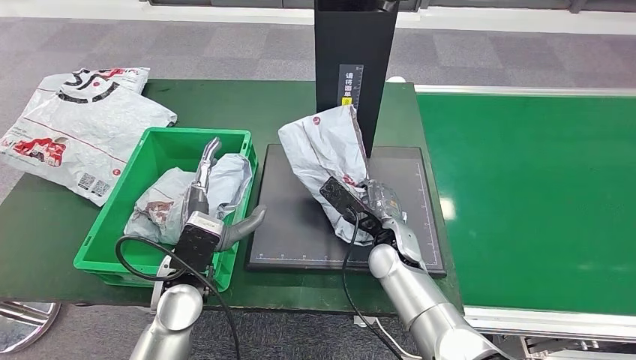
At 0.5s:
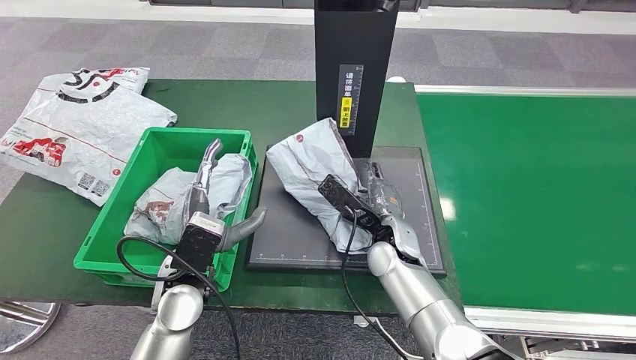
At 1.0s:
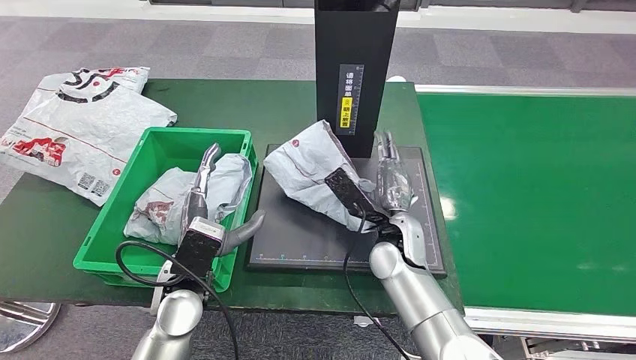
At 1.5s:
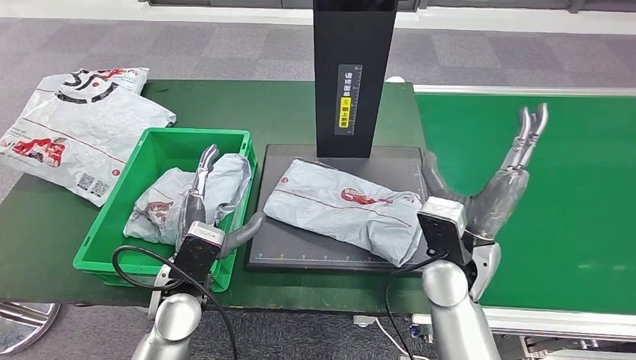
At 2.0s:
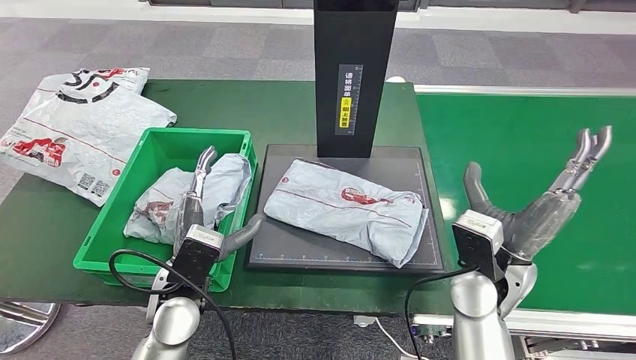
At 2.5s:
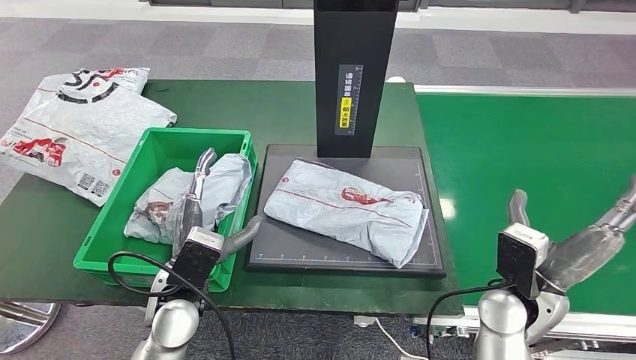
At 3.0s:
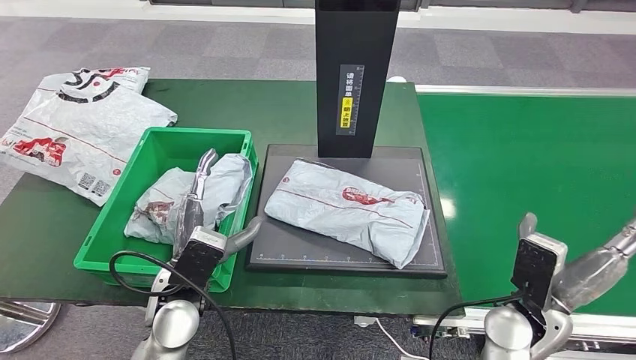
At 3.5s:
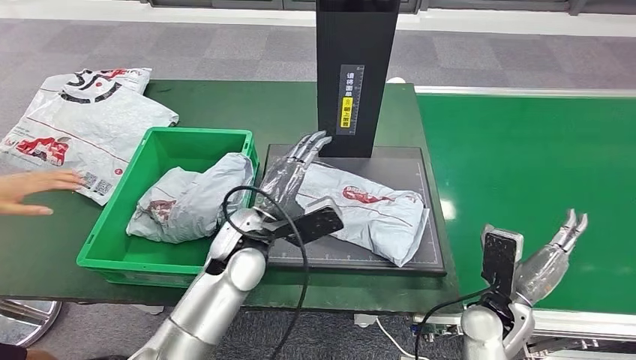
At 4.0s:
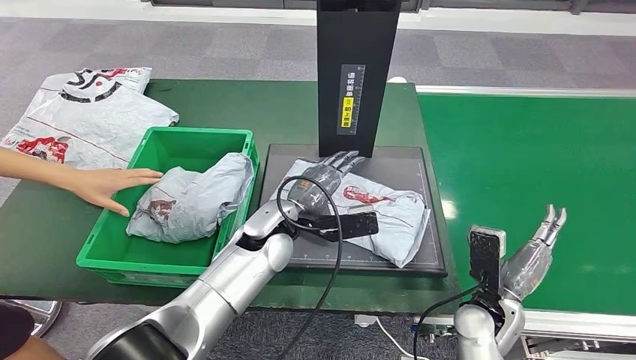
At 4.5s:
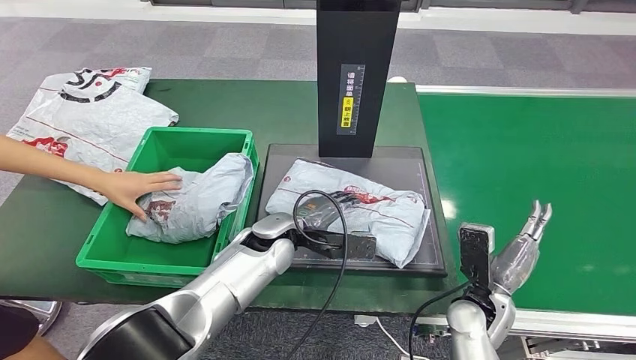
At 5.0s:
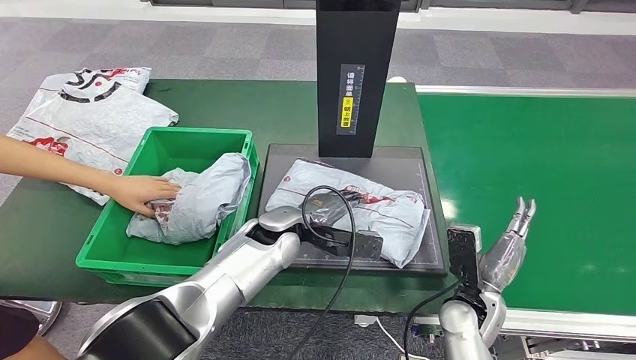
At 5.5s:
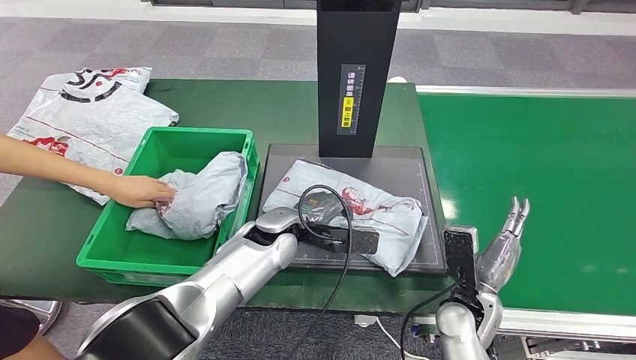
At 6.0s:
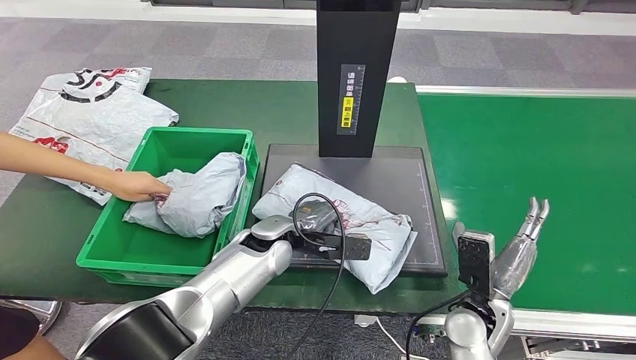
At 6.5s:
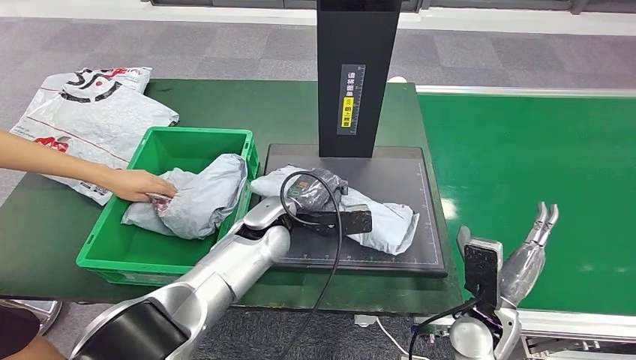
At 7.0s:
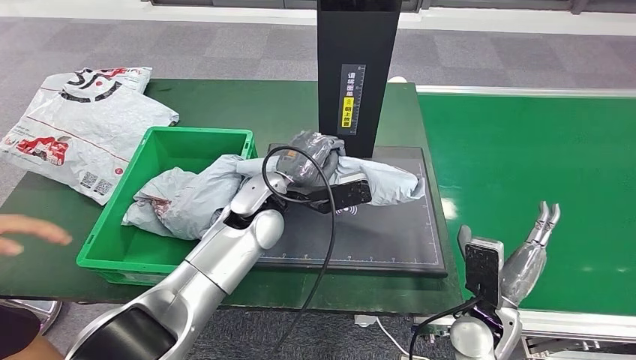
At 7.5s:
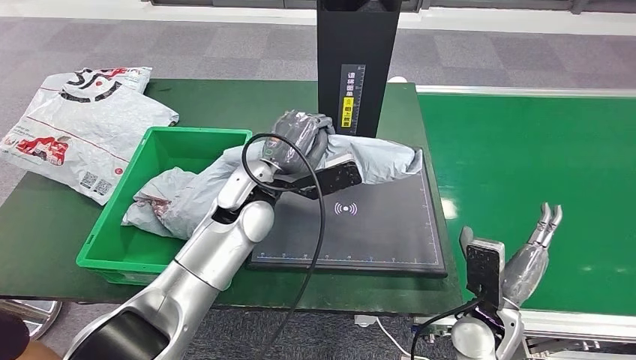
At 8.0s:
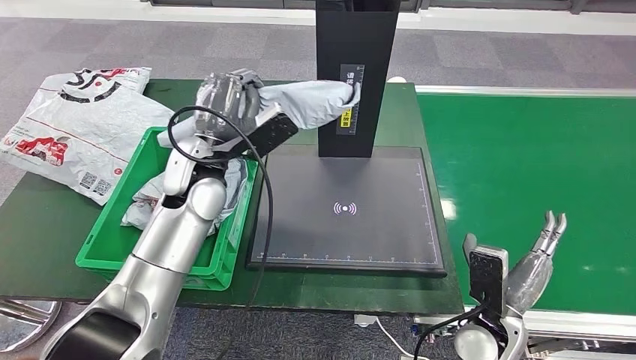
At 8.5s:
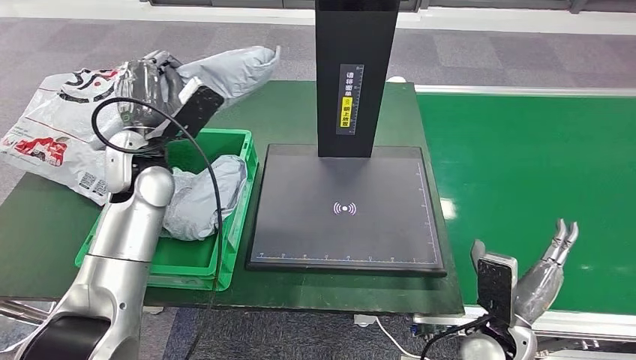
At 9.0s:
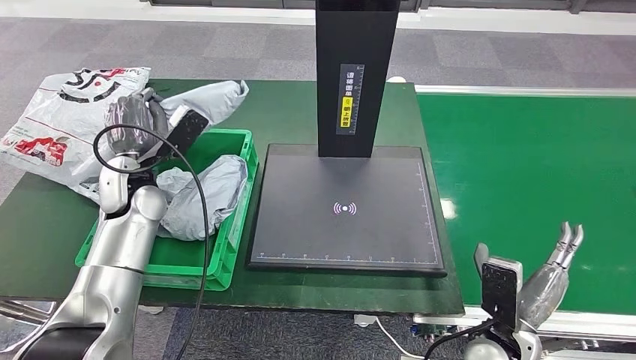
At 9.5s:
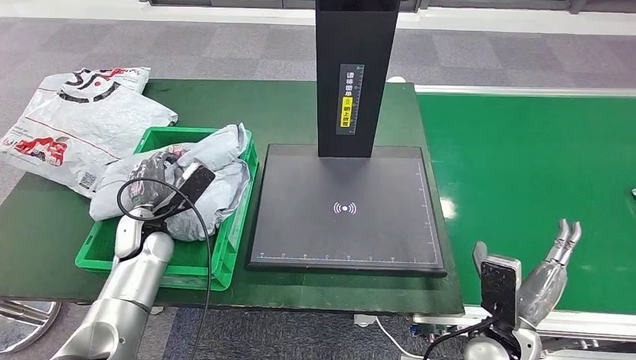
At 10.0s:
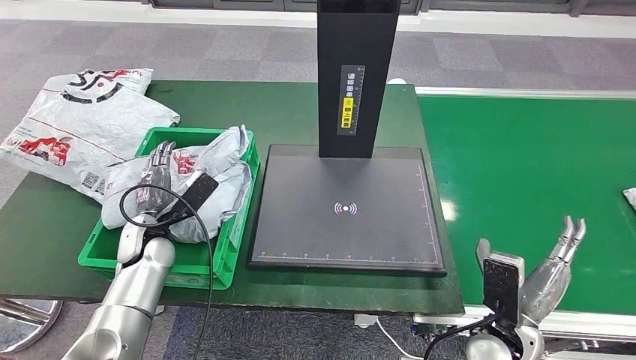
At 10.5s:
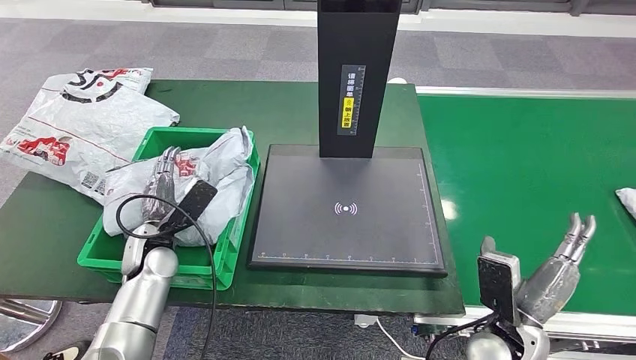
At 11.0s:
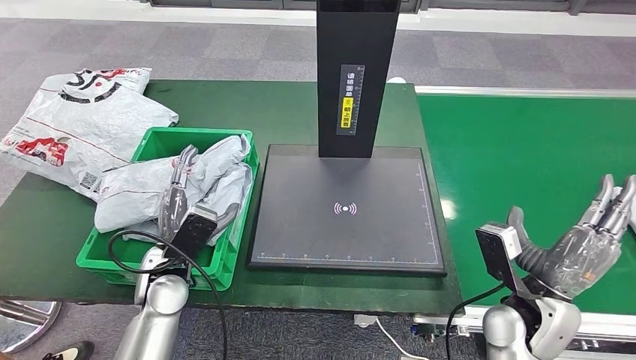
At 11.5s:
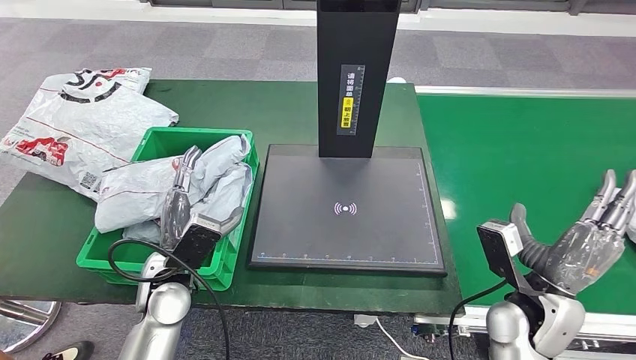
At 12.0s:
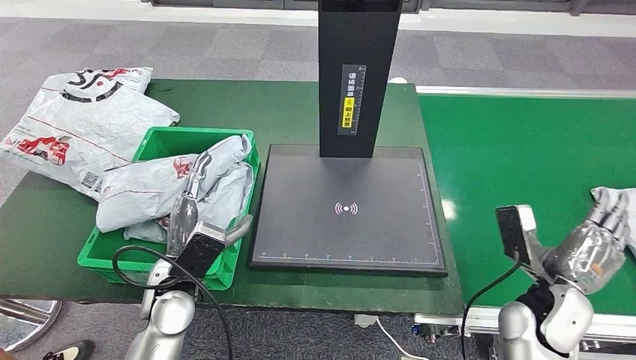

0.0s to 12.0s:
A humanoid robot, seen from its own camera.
Step, 0.0s to 3.0s: Place the parcel onto the inbound machine.
Step, 3.5s to 7.5s: Pick up the parcel from the inbound machine.
Step, 8.0s to 10.5s: Place the parcel into the delivery box.
0.0s to 2.0s: The right hand shifts some 15 cm to the right, upward and backward.
10.0s to 12.0s: The left hand travels backward and to the right by approximately 15 cm. The right hand moves to the right, roughly 5 cm.

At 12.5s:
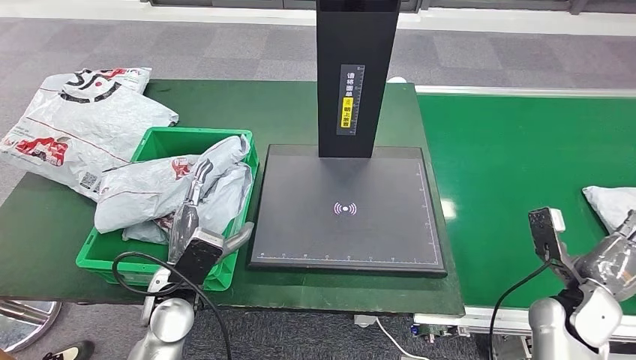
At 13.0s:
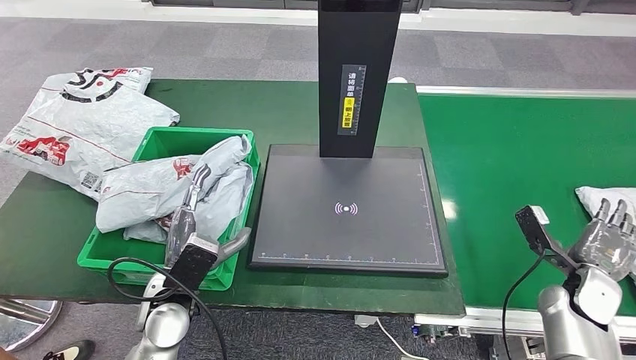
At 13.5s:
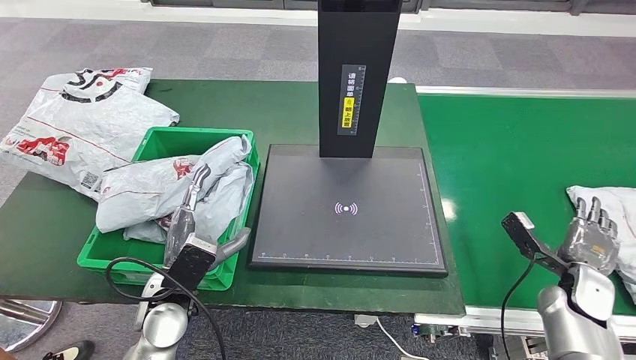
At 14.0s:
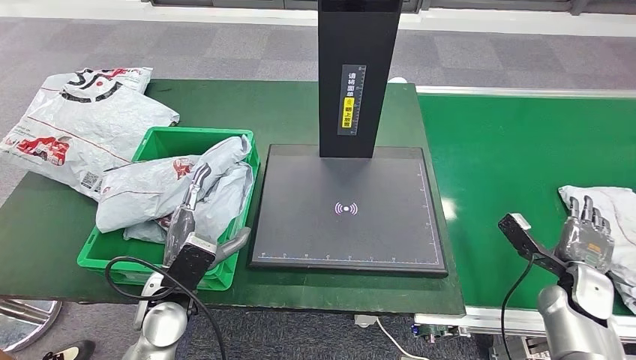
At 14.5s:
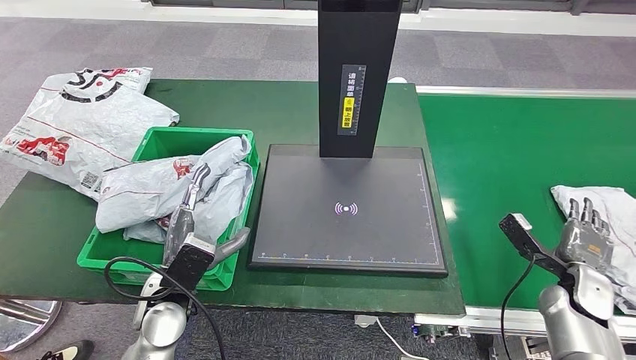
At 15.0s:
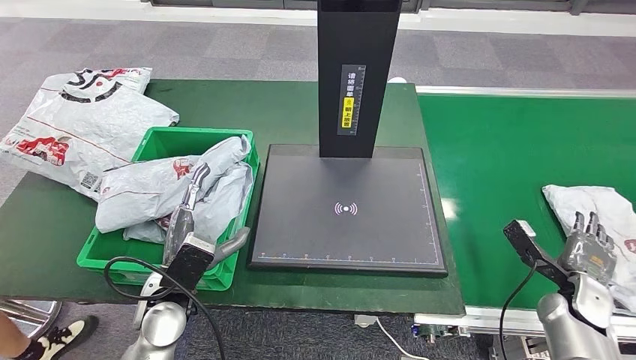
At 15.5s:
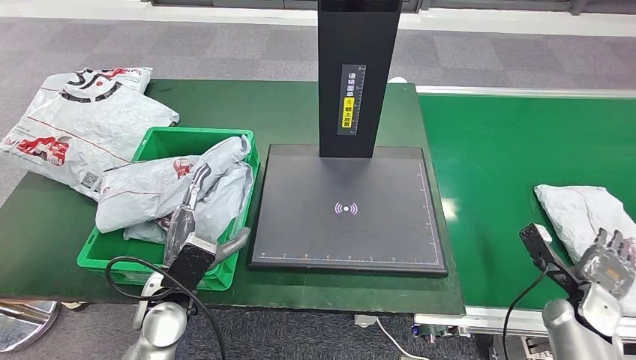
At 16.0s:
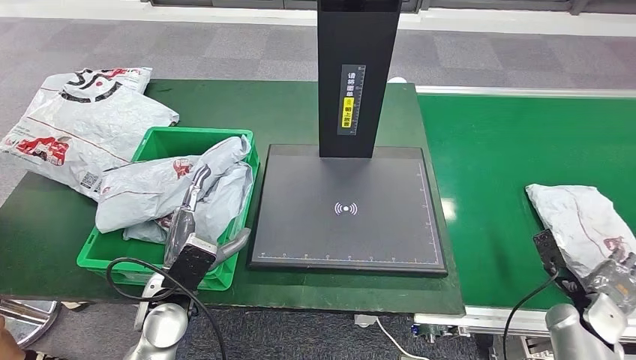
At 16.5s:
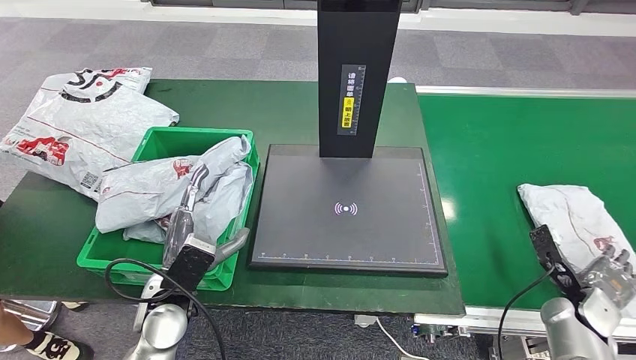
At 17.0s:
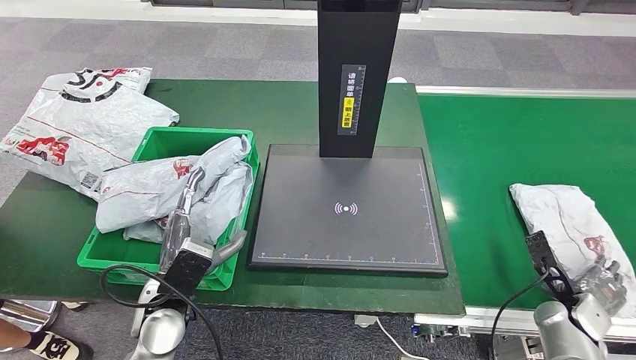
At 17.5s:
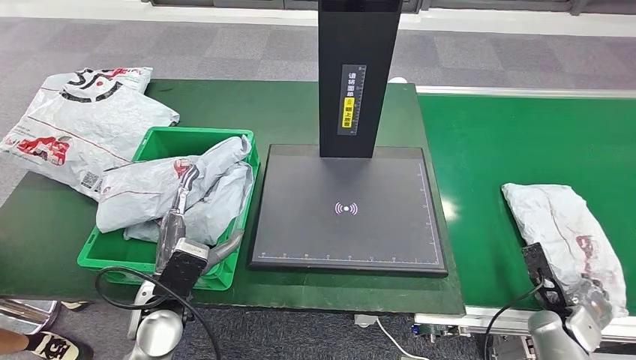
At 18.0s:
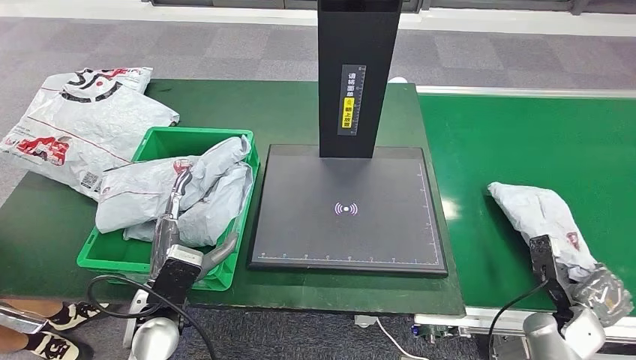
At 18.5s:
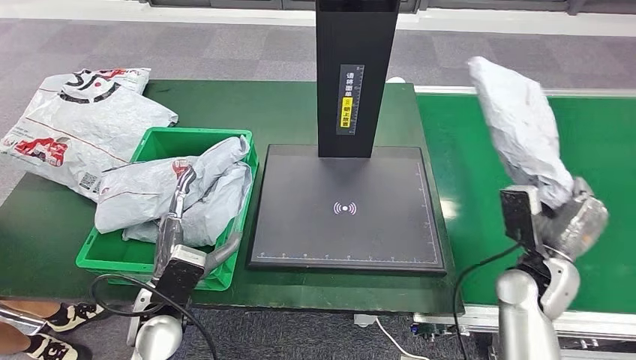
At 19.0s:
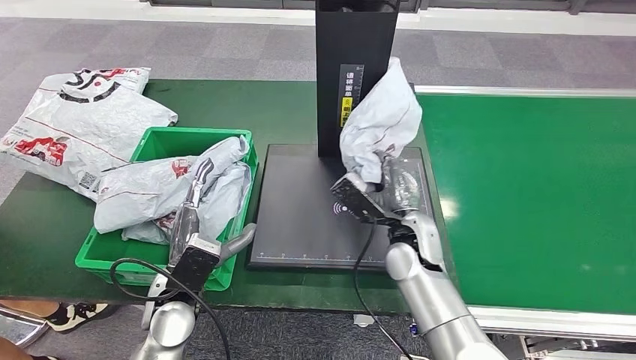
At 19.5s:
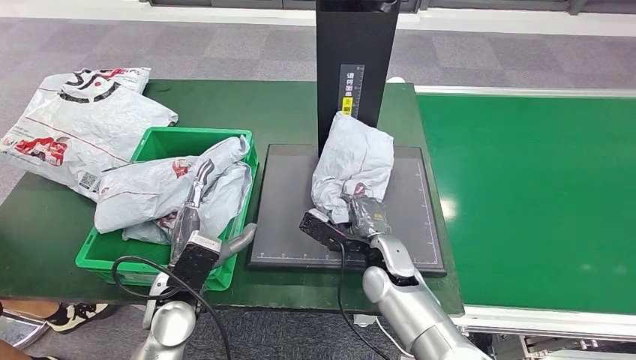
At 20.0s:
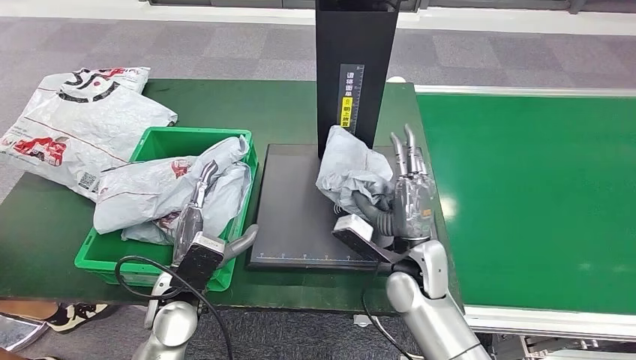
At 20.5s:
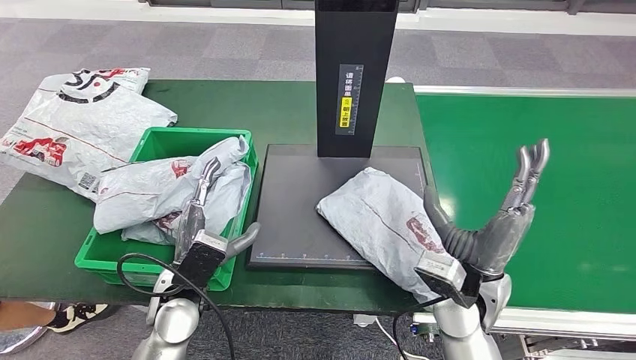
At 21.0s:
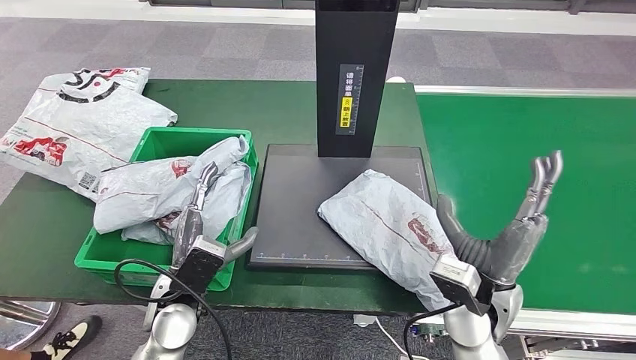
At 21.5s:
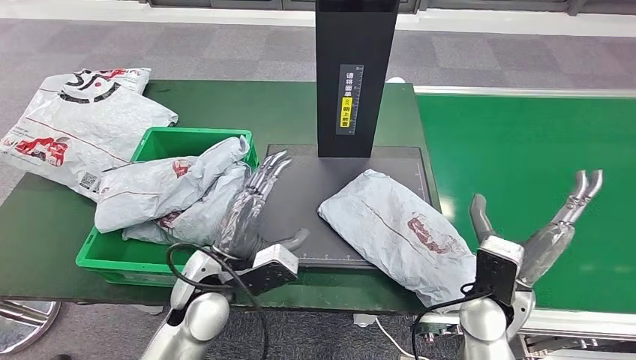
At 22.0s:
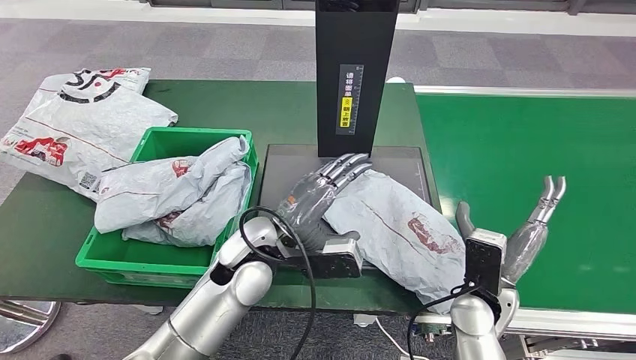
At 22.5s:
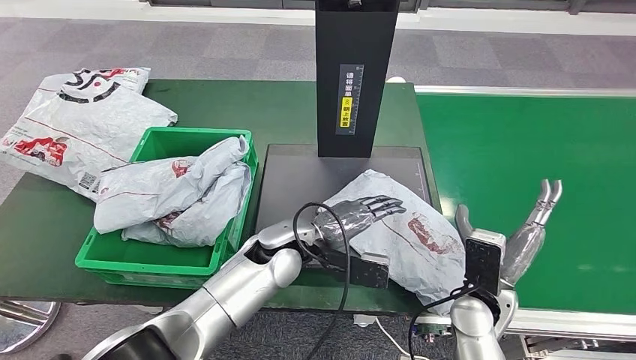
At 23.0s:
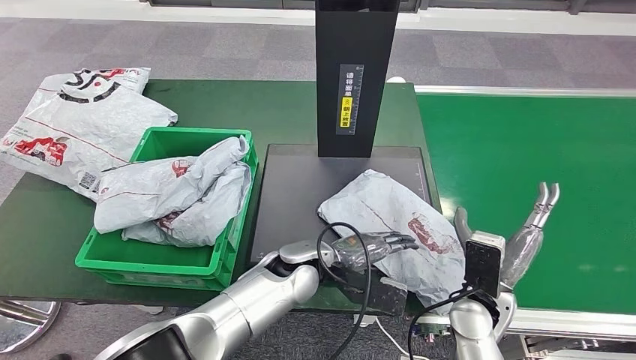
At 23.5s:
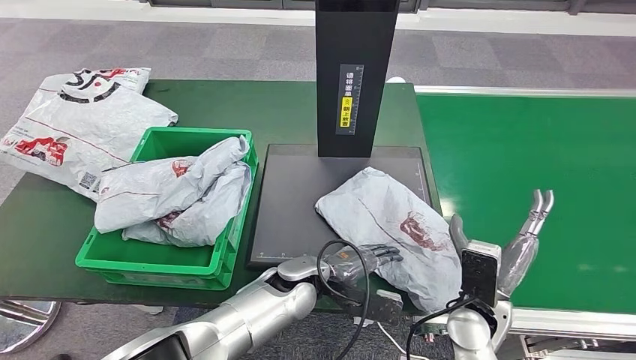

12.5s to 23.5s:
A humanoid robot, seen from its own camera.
Step, 16.5s to 18.0s: Pick up the parcel from the conveyor belt.
Step, 18.5s to 22.0s: Place the parcel onto the inbound machine.
12.5s to 14.5s: The right hand ends up approximately 5 cm from where it was.
16.0s to 18.0s: The hands move only a little.
21.5s to 23.5s: The left hand goes about 15 cm to the right and downward.
